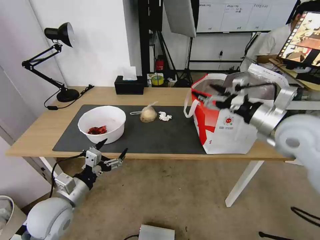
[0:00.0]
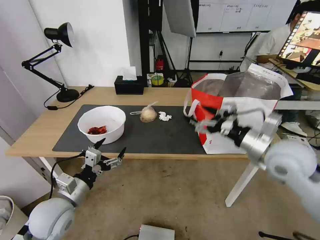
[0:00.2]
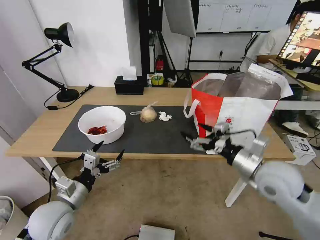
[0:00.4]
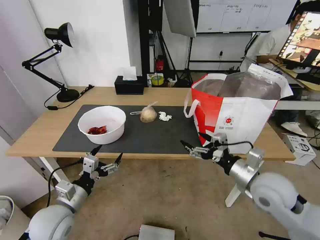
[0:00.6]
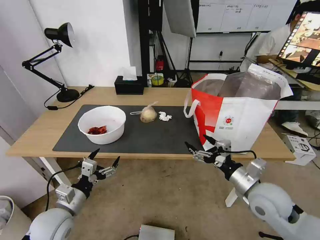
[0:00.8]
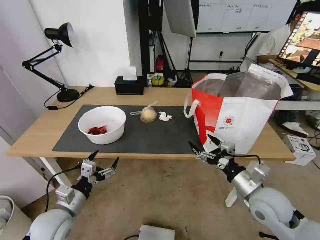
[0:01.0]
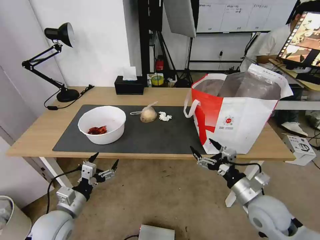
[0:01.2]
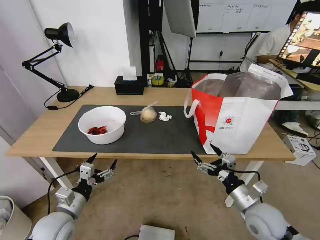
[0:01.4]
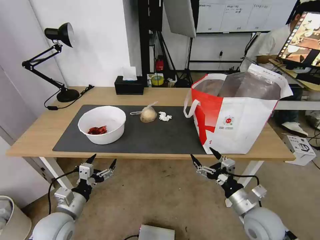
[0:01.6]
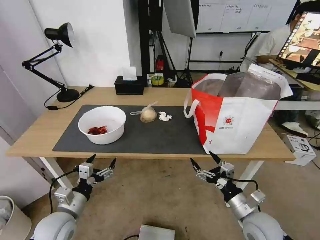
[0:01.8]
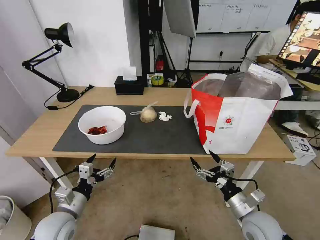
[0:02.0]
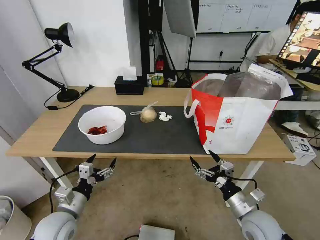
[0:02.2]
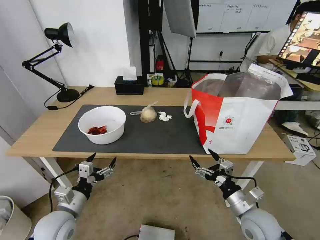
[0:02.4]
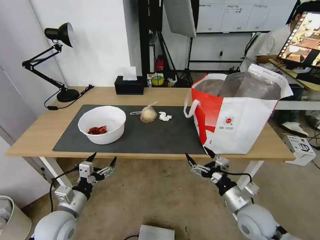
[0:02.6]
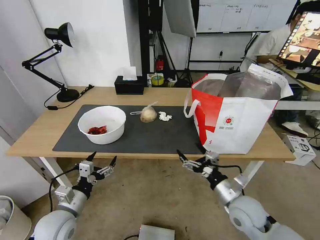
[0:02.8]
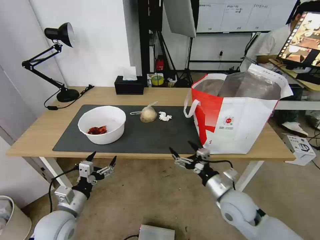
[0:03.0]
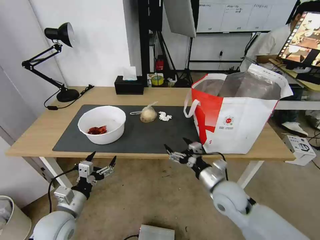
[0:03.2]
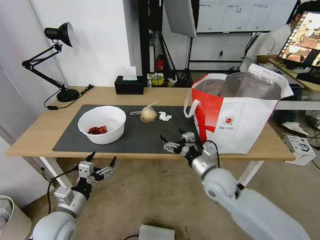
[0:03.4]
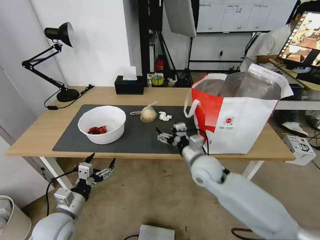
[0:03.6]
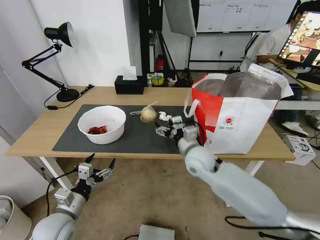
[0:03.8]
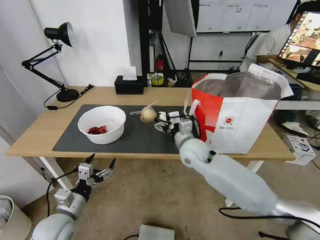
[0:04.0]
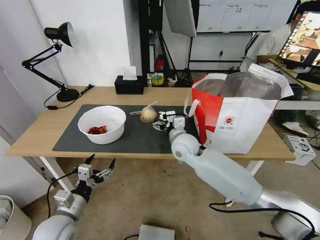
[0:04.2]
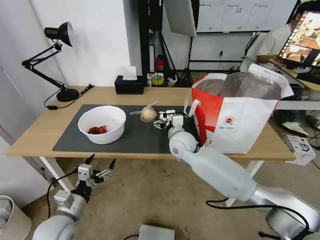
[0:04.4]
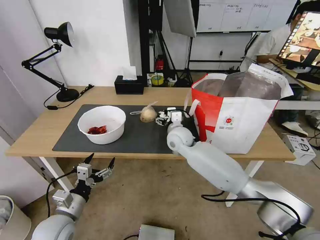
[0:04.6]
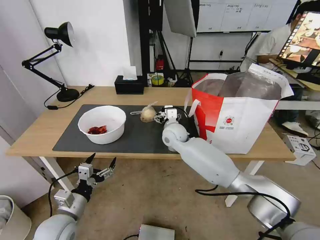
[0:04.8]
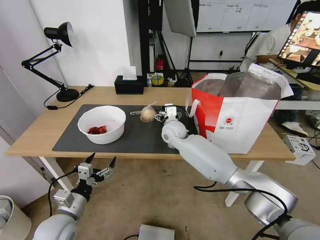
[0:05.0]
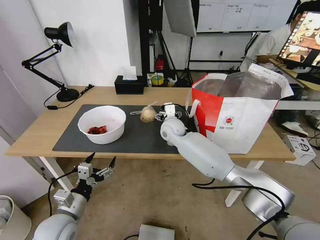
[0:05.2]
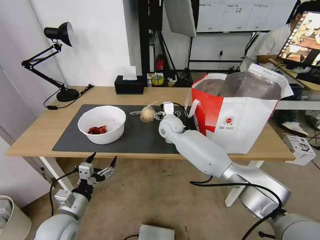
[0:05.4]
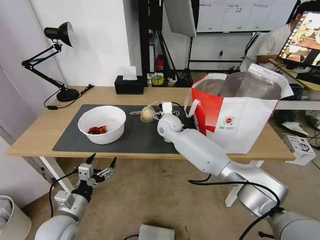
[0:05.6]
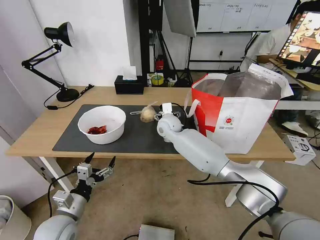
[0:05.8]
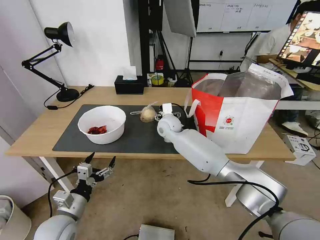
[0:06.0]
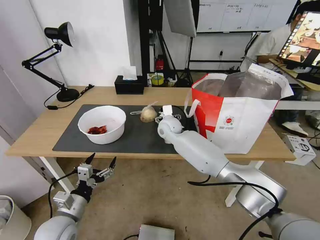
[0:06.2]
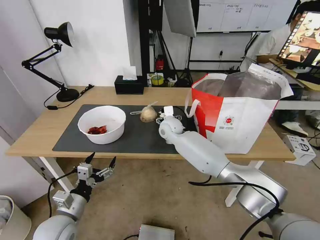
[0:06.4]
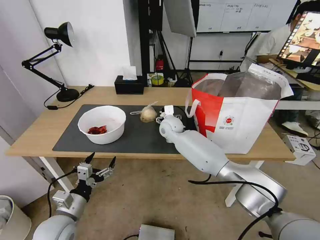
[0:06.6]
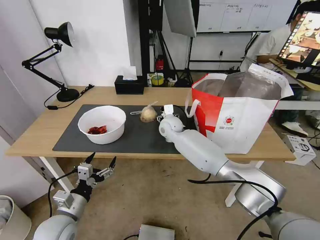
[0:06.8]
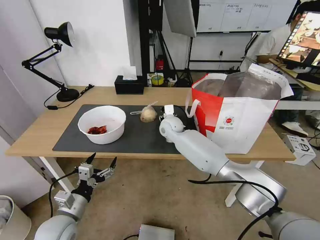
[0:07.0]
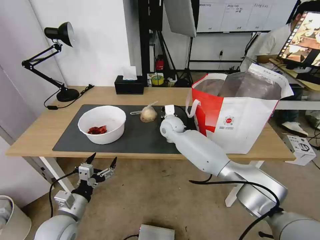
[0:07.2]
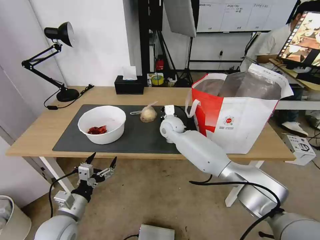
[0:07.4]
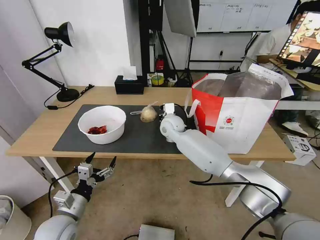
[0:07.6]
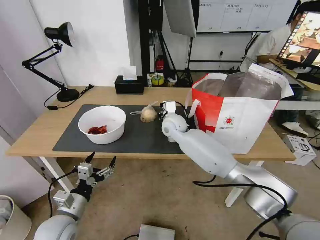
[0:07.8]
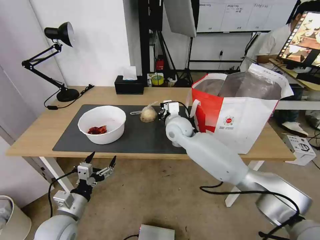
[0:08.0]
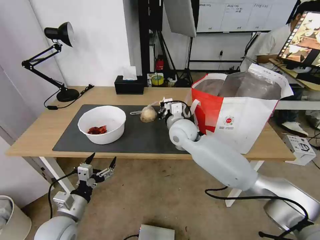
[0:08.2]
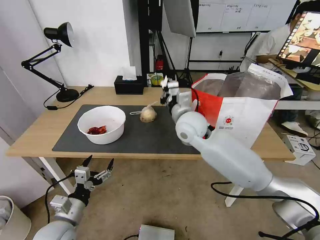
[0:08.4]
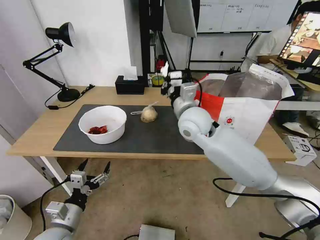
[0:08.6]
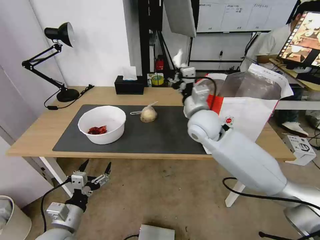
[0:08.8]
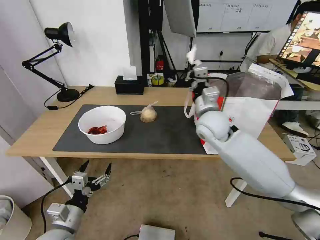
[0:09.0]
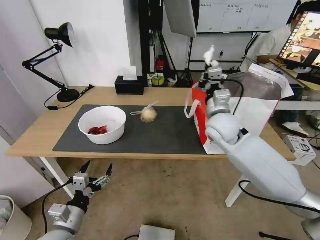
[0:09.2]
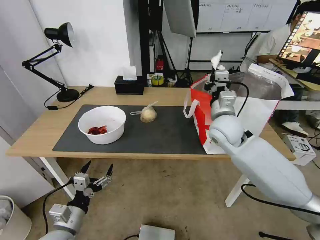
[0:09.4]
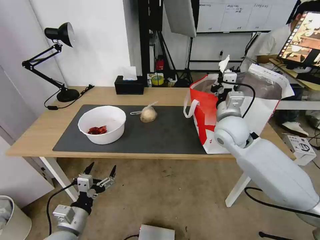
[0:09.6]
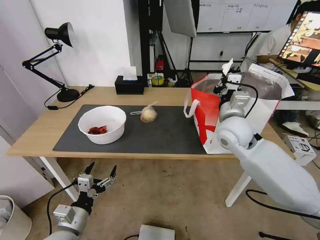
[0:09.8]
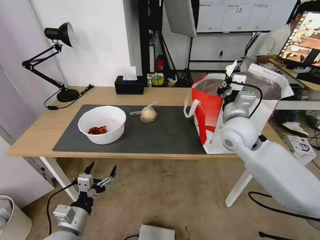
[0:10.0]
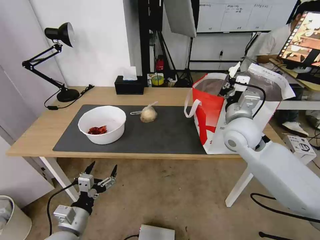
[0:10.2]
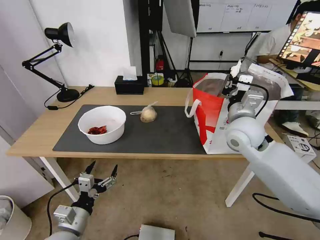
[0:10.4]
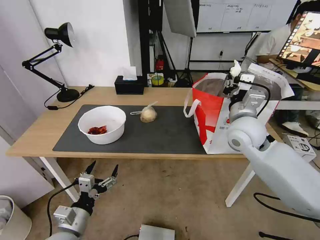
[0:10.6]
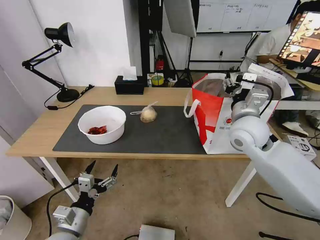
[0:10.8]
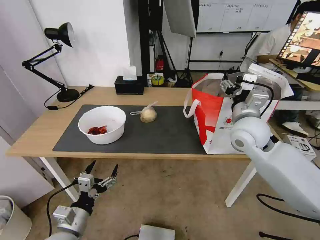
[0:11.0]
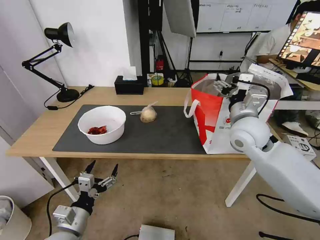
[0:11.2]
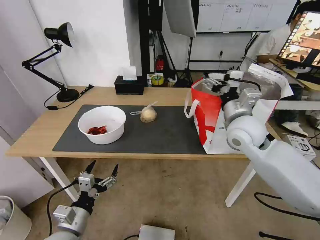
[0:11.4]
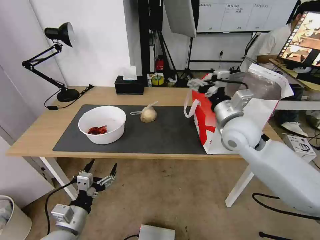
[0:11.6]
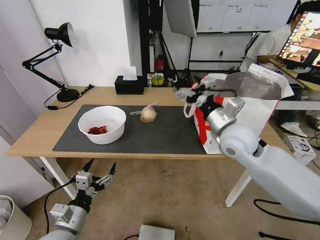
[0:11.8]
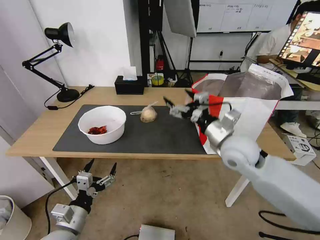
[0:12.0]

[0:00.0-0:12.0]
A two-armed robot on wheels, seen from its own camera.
Task of the whole recording: Pick up the trash from the table and place it into the takeout bag.
0:00.0 to 0:01.6: The right gripper heads downward and backward, covering approximately 30 cm. Meanwhile the left gripper shifts some 5 cm downward.
0:01.6 to 0:03.0: The right gripper travels to the left by about 5 cm.
0:03.0 to 0:04.4: The right gripper shifts about 25 cm forward and to the left.
0:04.4 to 0:06.0: The right gripper is displaced forward by some 10 cm.
0:06.0 to 0:07.6: The right gripper closes.
0:07.6 to 0:09.0: The right gripper heads to the right, backward and upward, covering roughly 15 cm.
0:09.0 to 0:10.4: The right gripper moves to the right, roughly 10 cm.
0:10.4 to 0:12.0: The right gripper changes place by approximately 5 cm, and opens up.

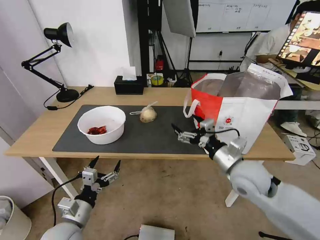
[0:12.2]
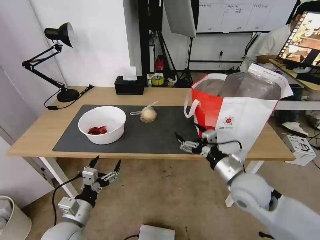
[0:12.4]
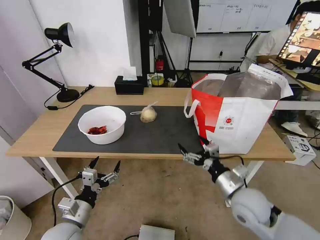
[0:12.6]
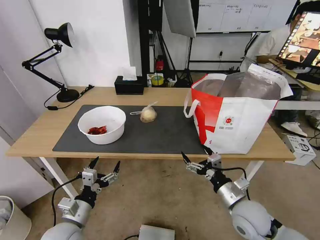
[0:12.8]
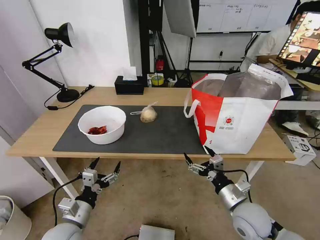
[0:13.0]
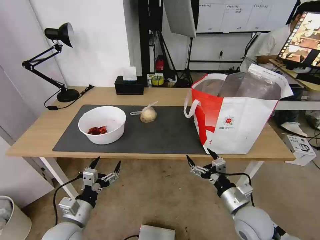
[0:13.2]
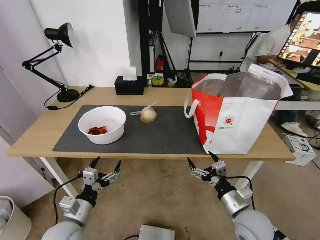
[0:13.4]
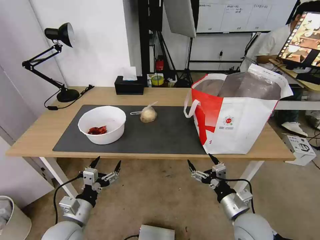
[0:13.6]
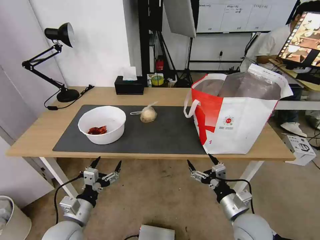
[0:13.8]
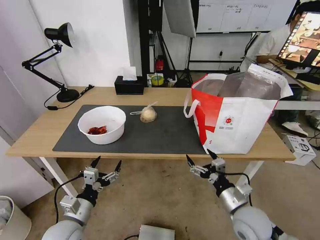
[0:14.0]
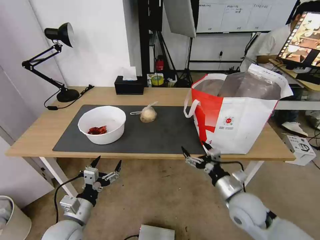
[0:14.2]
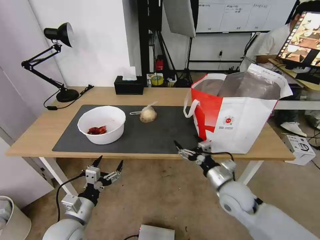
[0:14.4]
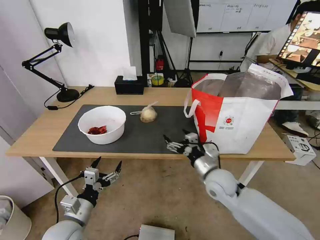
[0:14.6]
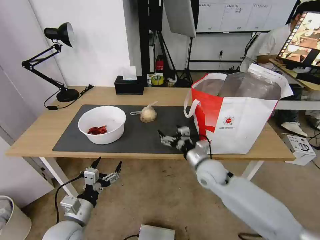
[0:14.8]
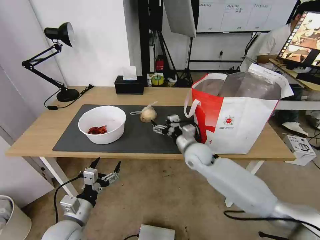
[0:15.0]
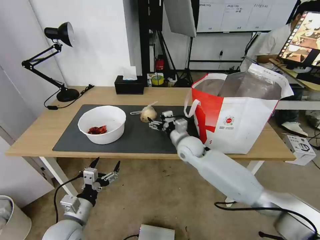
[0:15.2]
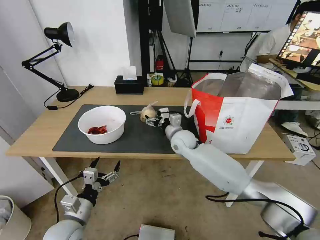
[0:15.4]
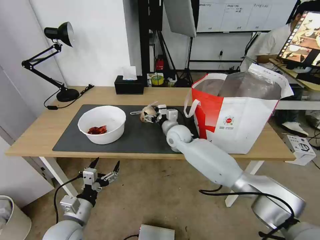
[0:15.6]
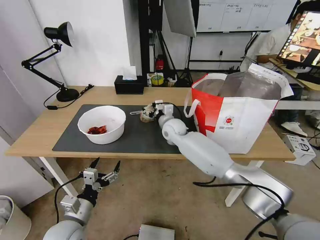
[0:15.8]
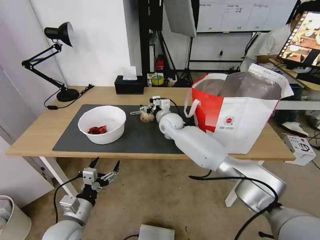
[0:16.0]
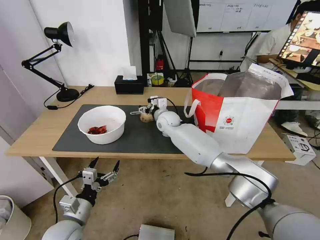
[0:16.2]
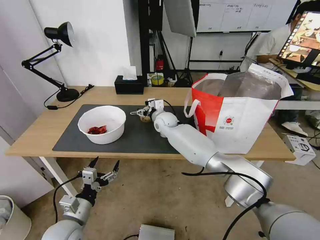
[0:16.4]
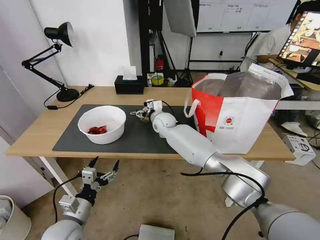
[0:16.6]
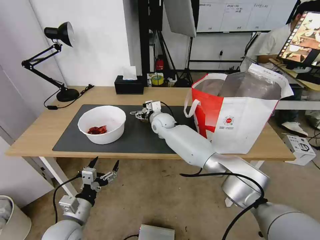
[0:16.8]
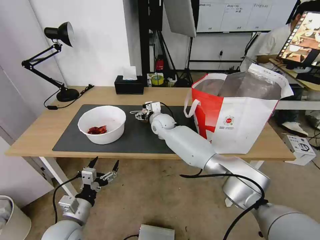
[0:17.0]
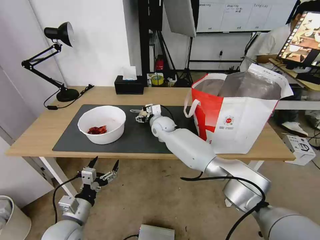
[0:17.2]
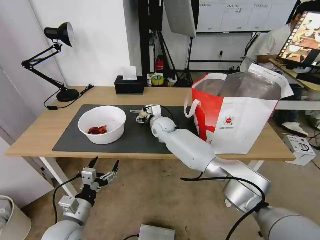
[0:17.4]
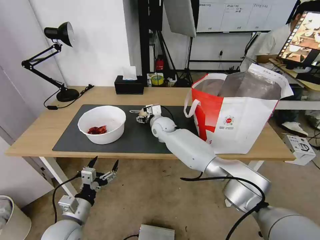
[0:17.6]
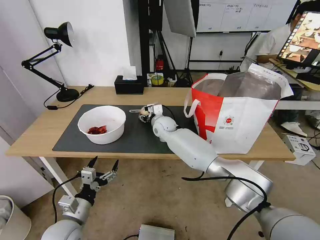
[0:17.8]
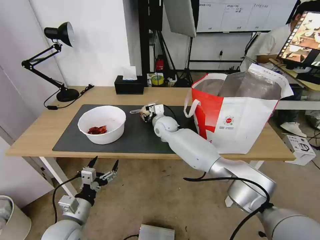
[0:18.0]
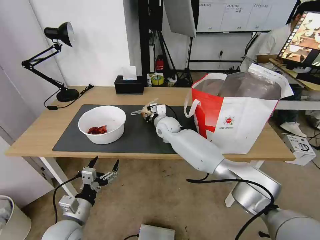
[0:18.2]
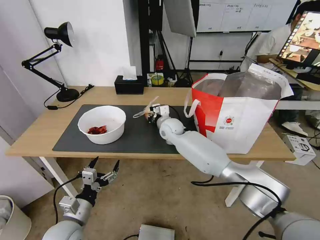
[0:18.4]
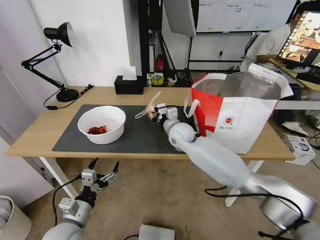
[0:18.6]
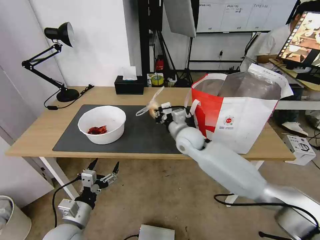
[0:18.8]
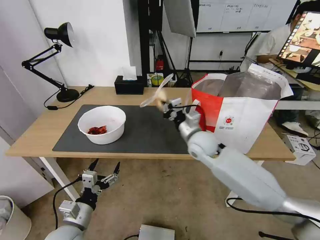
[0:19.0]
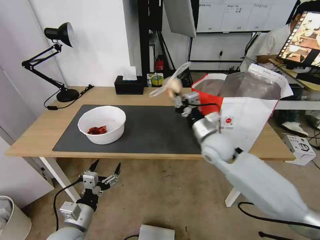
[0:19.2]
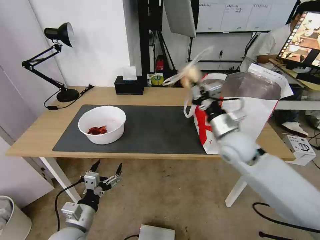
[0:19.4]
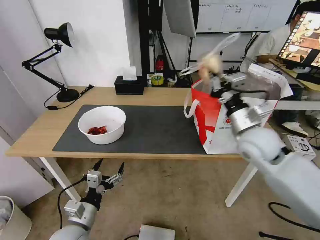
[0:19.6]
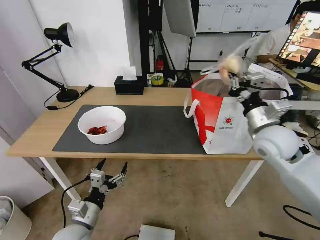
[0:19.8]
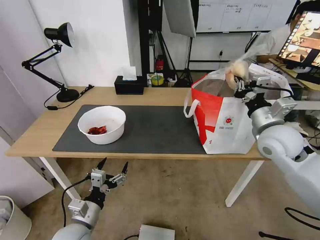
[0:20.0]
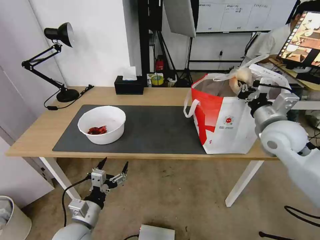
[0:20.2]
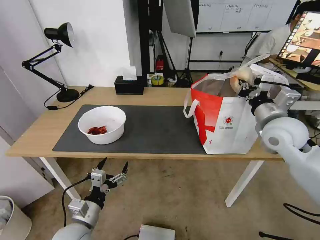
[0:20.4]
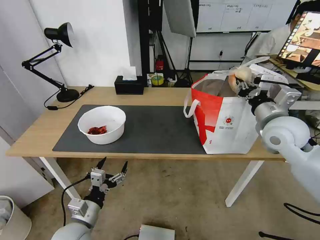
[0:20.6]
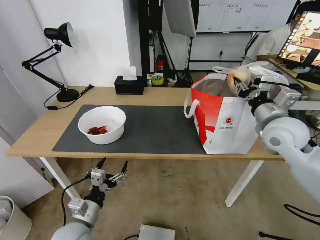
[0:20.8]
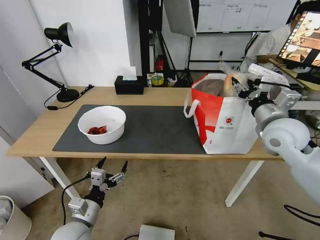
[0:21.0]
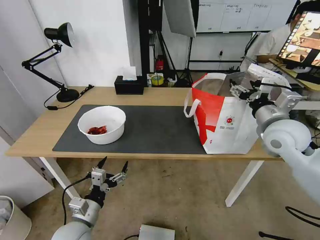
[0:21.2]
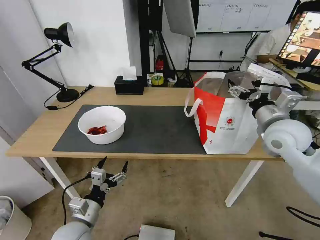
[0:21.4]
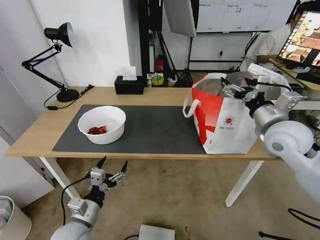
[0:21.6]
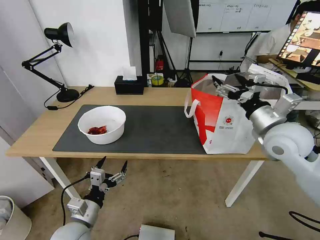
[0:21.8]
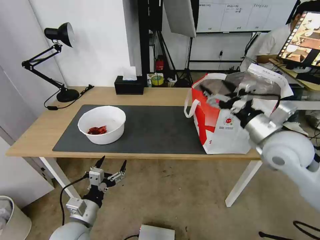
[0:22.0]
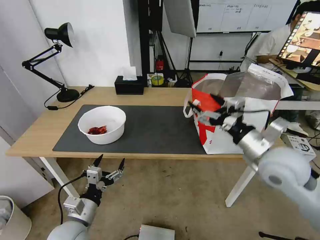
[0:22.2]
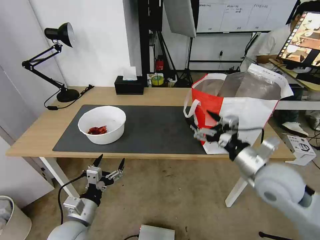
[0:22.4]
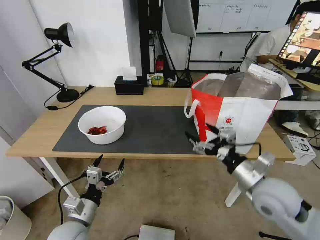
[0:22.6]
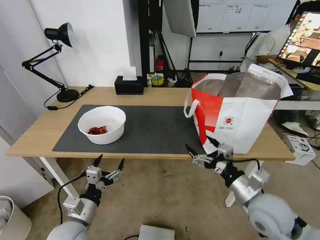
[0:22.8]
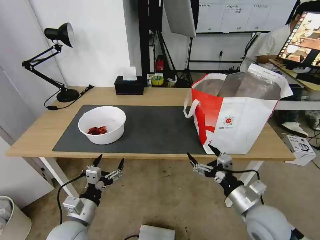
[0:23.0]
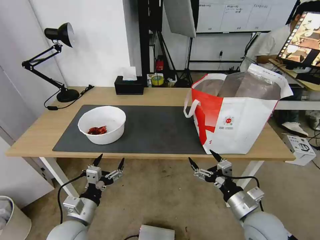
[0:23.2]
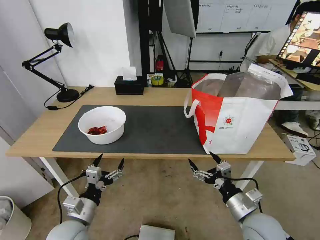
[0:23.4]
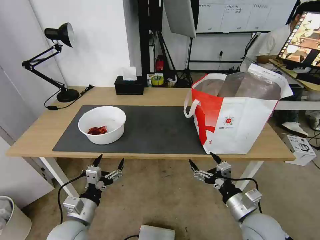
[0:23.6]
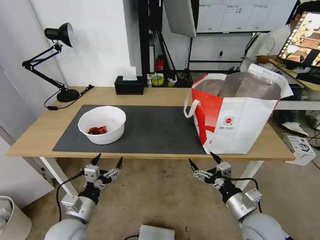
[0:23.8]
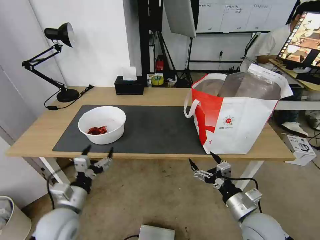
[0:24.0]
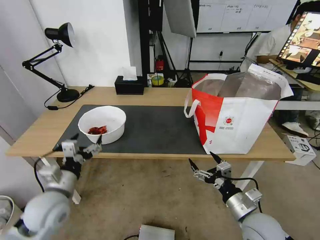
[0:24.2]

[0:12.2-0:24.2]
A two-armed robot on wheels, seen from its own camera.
Task of the whole recording: Pick up the trash from the table and place it into the takeout bag.
0:12.2 to 0:13.8: The right gripper moves downward and backward, some 20 cm.
0:13.8 to 0:15.2: The right gripper moves forward and to the left, about 30 cm.
0:15.2 to 0:16.6: The right gripper moves forward and to the left, approximately 15 cm.
0:16.6 to 0:18.2: The right gripper closes its fingers.
0:18.2 to 0:19.8: The right gripper shifts roughly 35 cm to the right, backward and upward.
0:19.8 to 0:21.2: The right gripper opens its fingers.
0:21.2 to 0:22.6: The right gripper travels backward and downward by about 15 cm.
0:22.6 to 0:24.2: The right gripper is displaced downward and backward by some 10 cm. Meanwhile the left gripper is displaced upward by about 5 cm.
